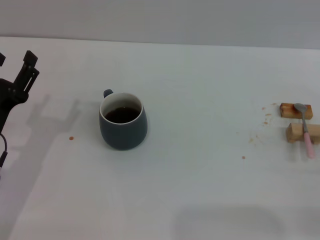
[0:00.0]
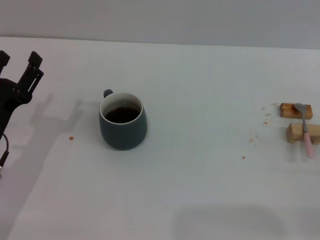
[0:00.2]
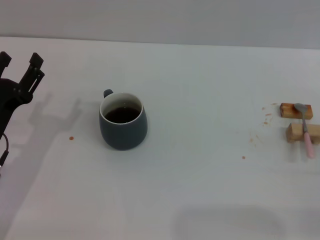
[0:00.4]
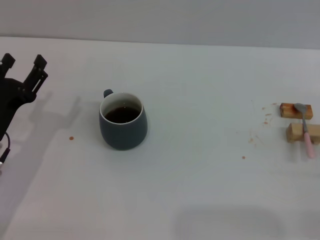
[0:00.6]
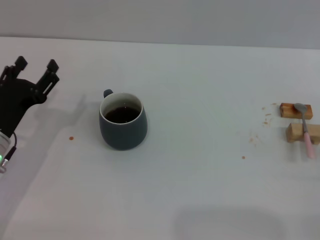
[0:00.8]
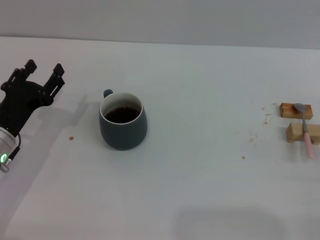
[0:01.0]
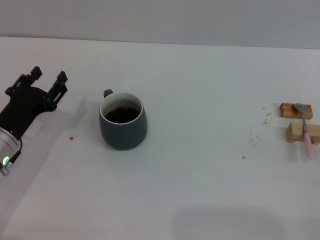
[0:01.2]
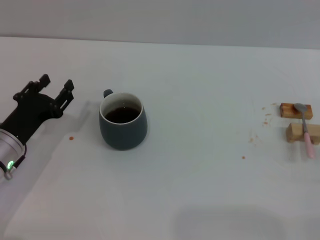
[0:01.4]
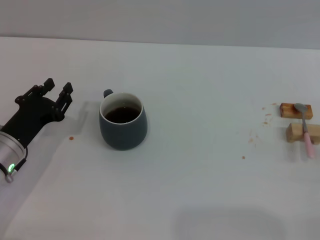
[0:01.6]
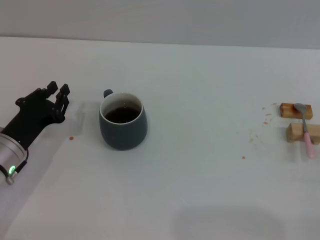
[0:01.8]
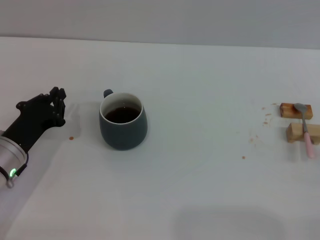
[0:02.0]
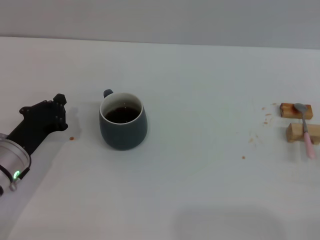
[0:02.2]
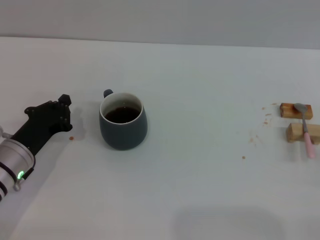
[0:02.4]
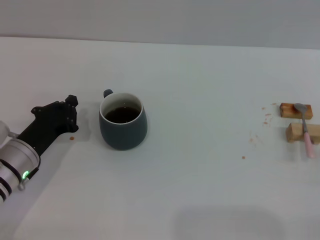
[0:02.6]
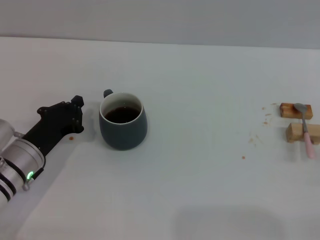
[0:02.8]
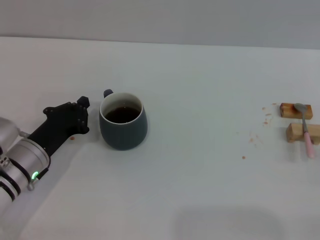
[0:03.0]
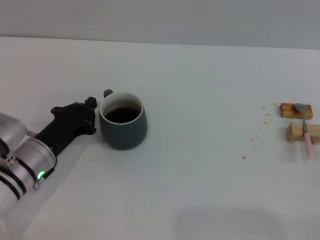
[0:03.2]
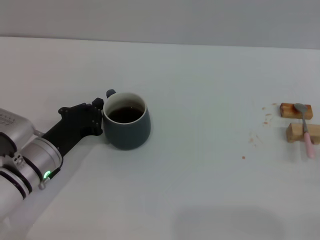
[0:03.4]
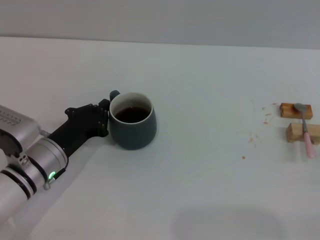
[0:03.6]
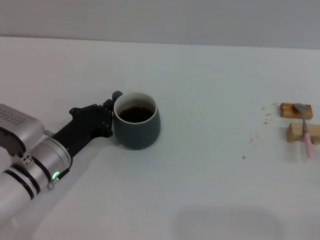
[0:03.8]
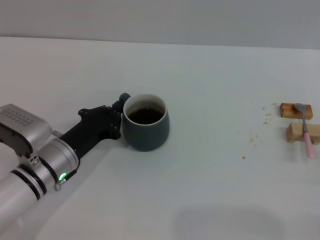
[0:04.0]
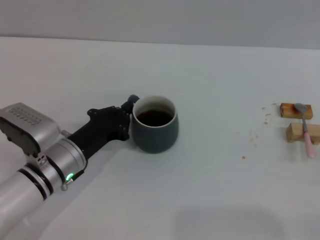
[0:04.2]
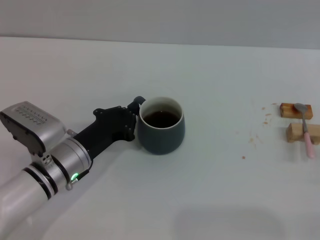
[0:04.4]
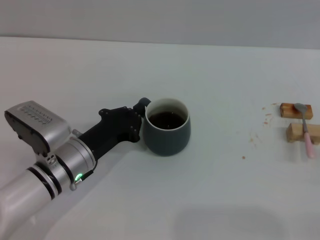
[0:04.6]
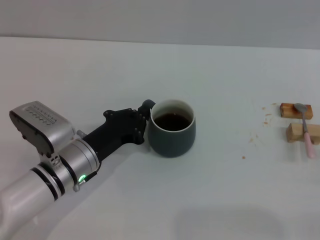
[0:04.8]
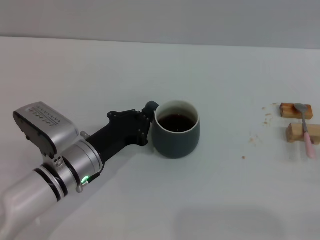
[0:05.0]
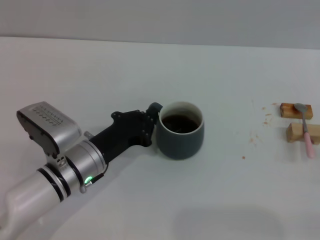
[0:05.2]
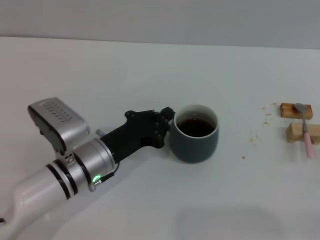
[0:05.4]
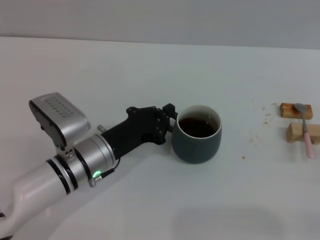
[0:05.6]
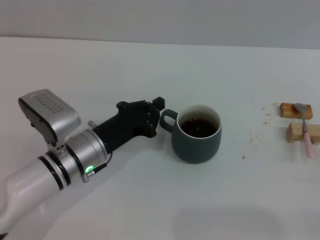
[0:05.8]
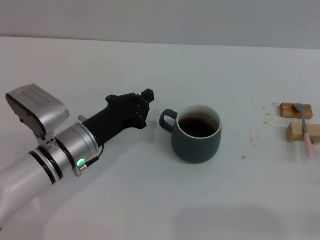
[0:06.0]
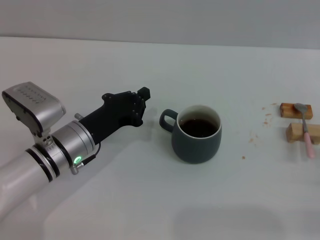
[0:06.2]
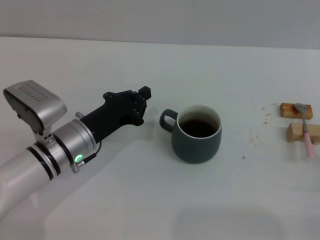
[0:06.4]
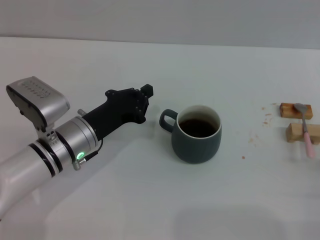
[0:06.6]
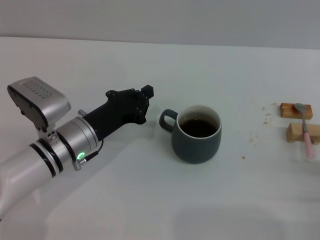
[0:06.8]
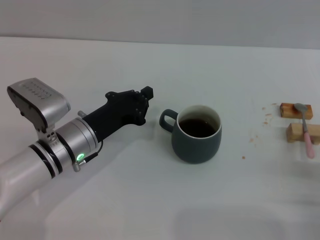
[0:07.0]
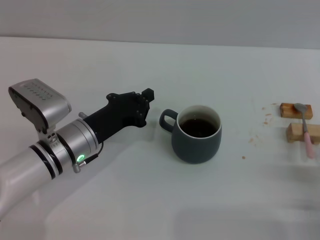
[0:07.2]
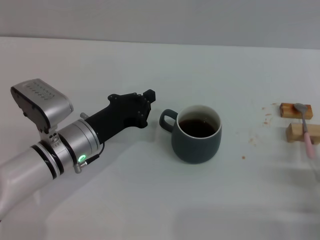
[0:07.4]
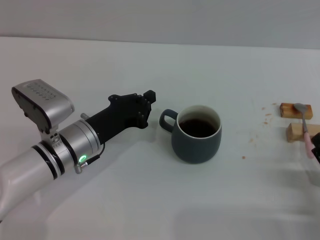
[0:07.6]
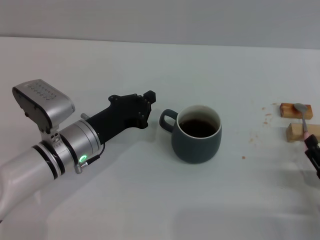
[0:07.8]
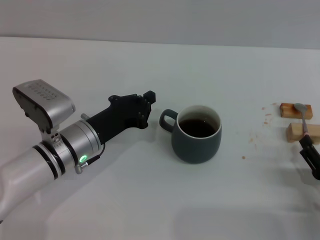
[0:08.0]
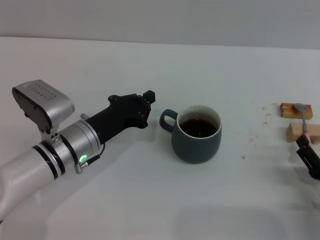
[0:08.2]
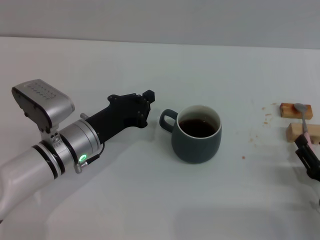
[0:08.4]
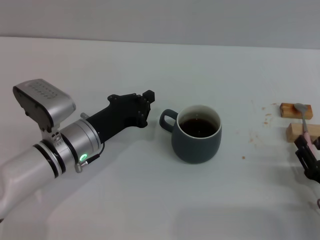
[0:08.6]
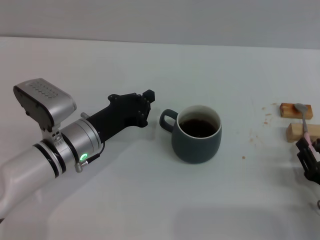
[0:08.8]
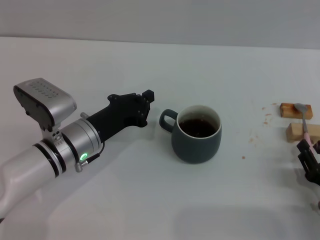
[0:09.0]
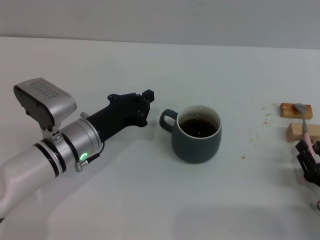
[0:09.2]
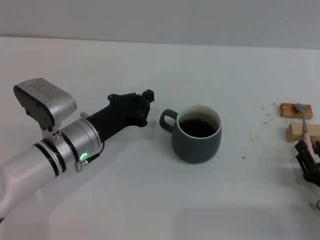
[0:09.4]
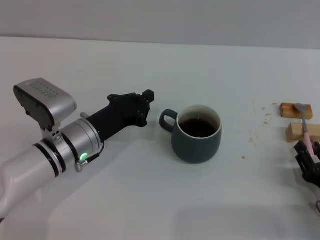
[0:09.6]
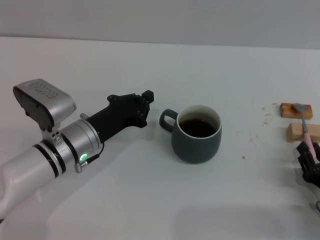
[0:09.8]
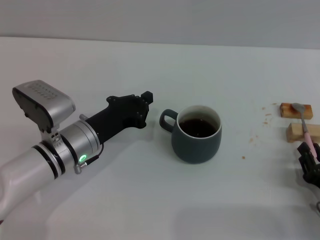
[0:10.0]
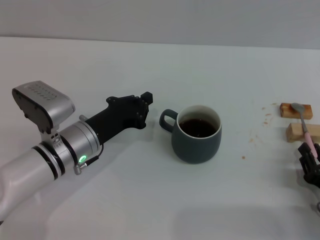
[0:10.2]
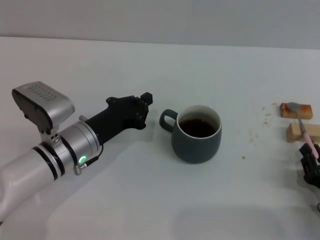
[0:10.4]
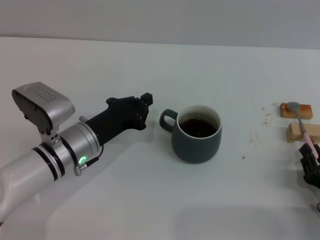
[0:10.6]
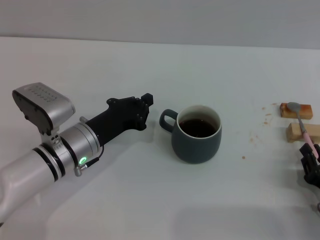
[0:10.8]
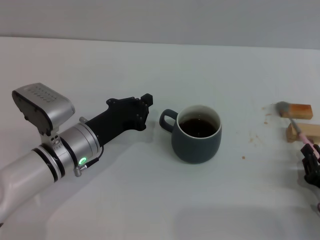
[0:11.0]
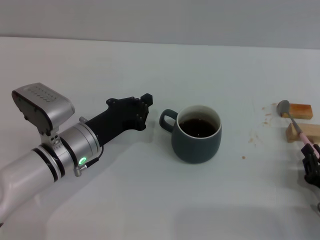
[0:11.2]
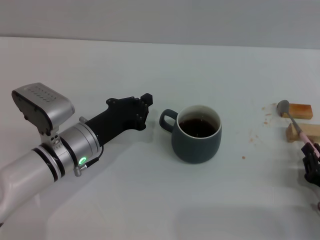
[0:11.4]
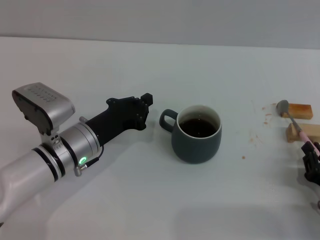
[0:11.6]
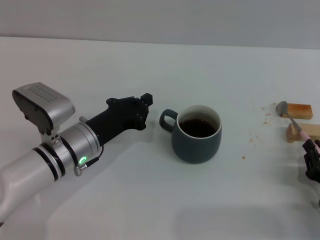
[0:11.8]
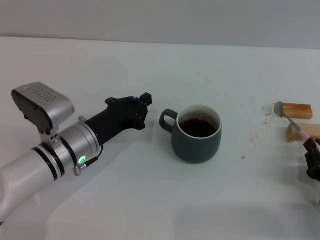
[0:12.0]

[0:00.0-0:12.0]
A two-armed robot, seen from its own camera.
Task of the whole recording: Move the grey cup to the center, lift the pink spoon, stir it three times in the cup, and put the spoon into the cup.
Step, 0:00.0 to 0:06.0: Move the cup with coffee to the center of view with the left gripper.
0:01.6 to 0:03.0: The left gripper closes.
0:03.0 to 0:04.4: The left gripper shifts approximately 5 cm to the right.
0:04.4 to 0:06.0: The grippers move only a little.
0:06.0 to 0:07.6: The right gripper is displaced to the left by some 5 cm.
0:07.6 to 0:09.0: The right gripper closes its fingers.
0:09.0 to 0:12.0: Both grippers stay put.

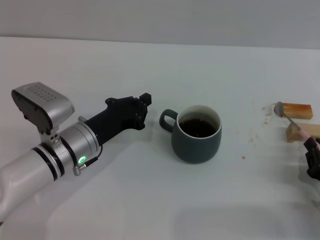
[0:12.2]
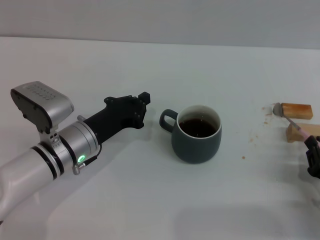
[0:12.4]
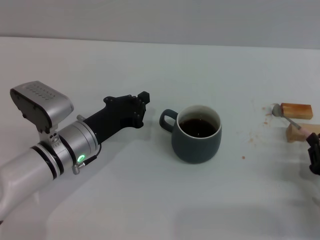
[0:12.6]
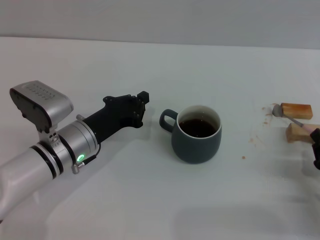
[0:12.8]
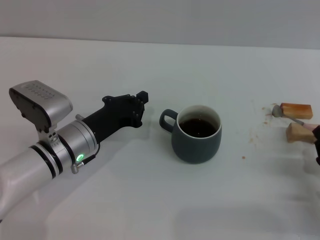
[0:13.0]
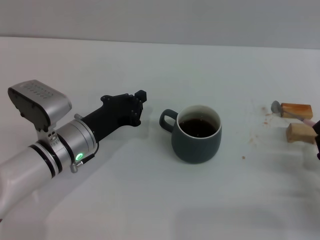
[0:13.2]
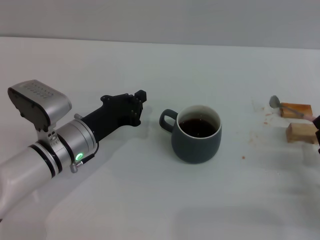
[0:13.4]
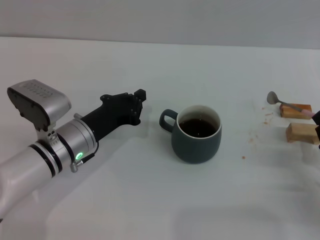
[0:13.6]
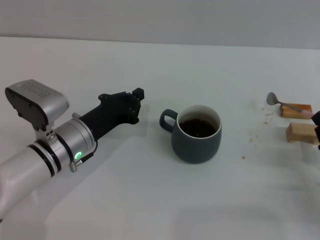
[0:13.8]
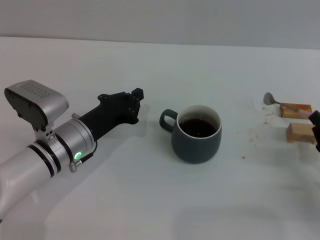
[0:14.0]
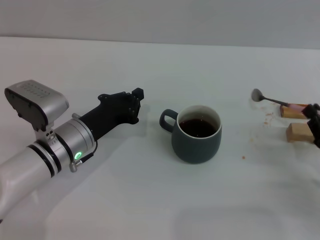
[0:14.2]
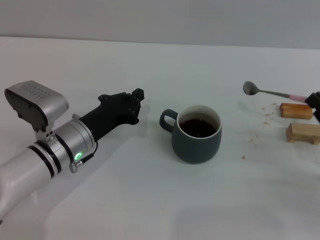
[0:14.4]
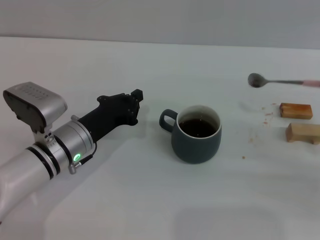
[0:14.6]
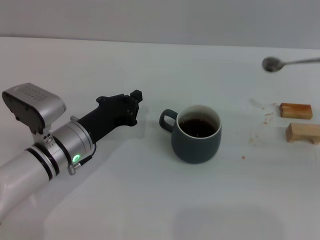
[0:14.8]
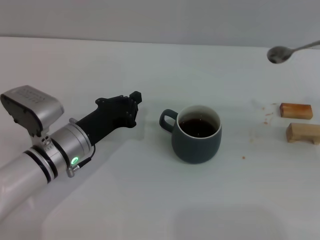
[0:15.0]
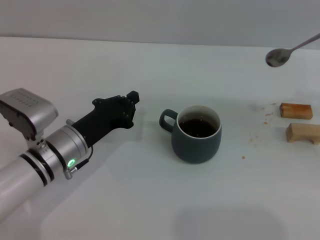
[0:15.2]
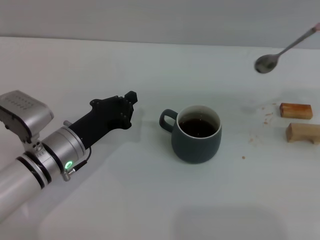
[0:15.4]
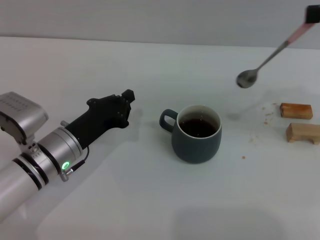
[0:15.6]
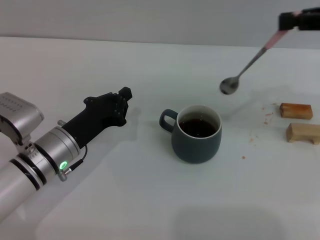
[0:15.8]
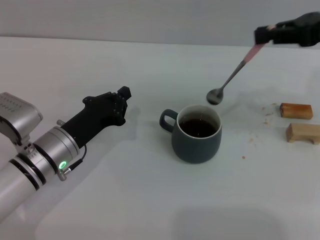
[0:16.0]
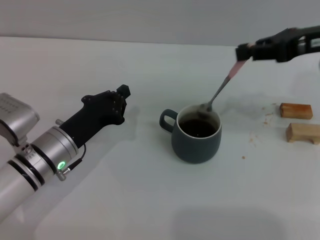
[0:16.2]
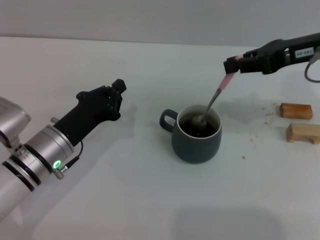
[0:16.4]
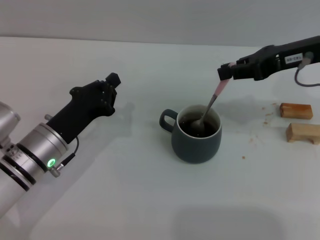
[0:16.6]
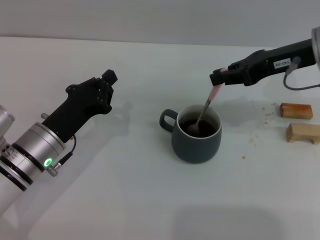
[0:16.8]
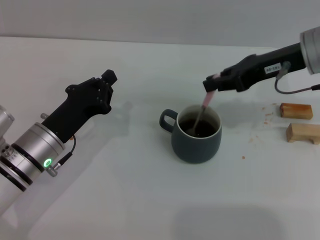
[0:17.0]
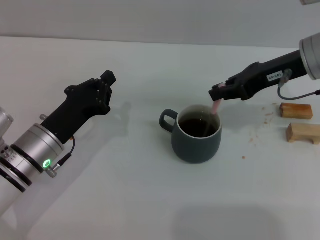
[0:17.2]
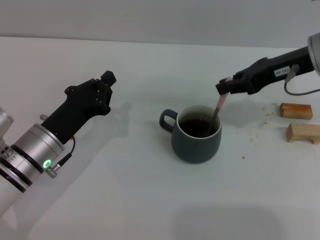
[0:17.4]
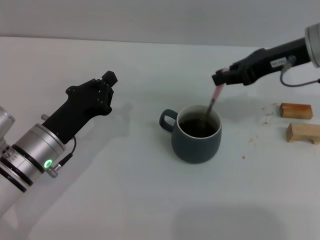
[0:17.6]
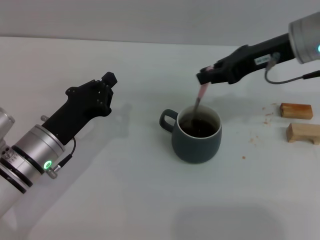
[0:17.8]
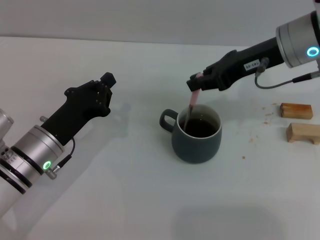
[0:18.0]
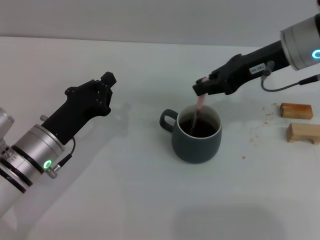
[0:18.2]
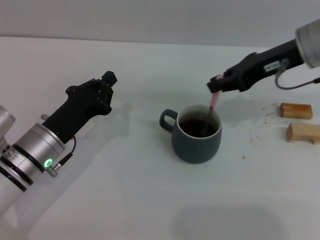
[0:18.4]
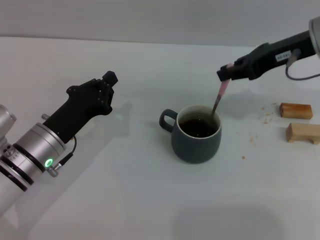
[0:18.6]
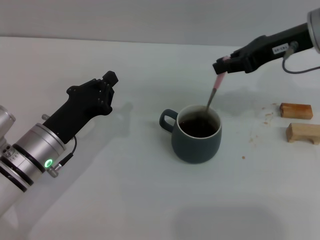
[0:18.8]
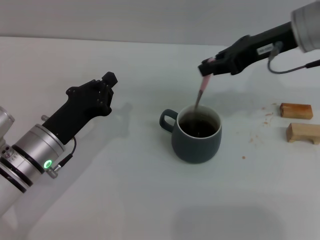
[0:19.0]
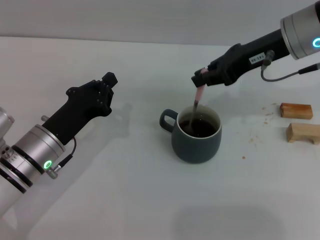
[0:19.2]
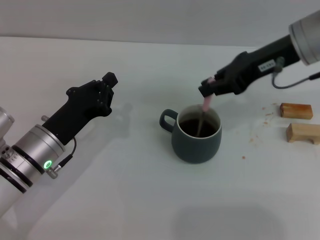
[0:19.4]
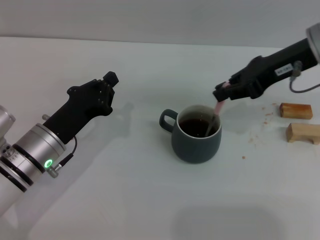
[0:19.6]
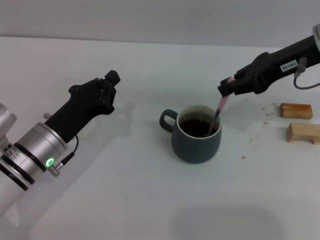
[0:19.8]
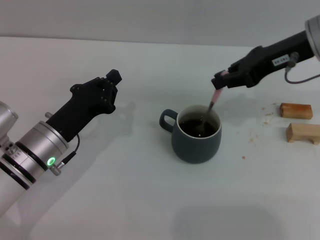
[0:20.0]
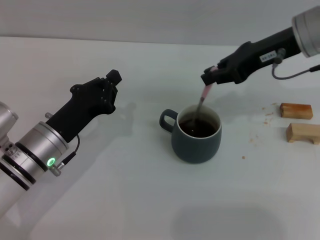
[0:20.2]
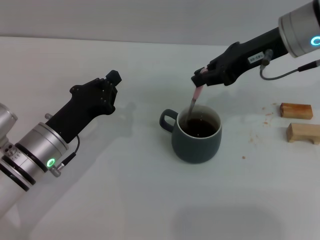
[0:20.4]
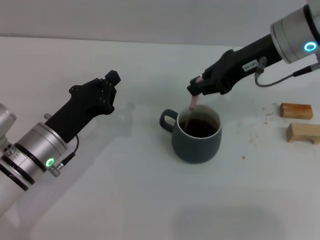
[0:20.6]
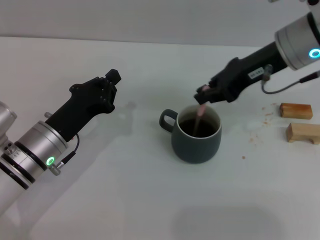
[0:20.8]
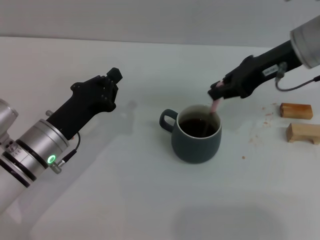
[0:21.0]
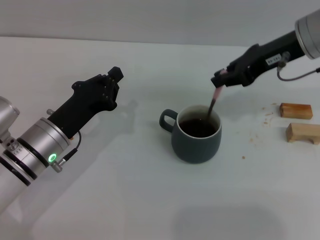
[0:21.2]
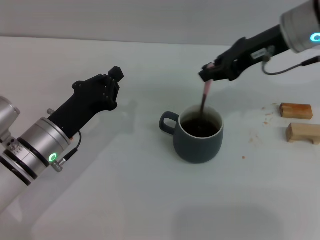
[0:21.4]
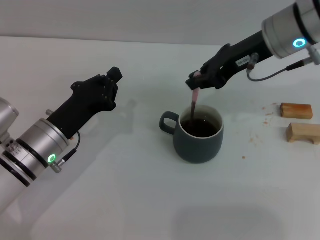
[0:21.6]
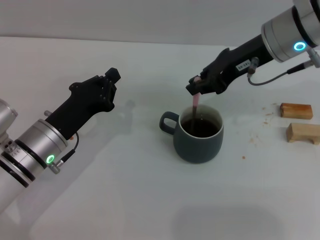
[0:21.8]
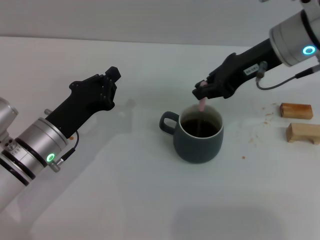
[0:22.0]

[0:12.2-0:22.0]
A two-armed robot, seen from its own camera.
Task of the whole recording: Move the grey cup to the center, lift the pink spoon, stir it three times in the cup, and put the spoon into the cup.
0:12.2 to 0:13.6: The grippers make only small movements.
0:13.6 to 0:15.0: The right gripper goes some 20 cm upward and to the right.
0:15.0 to 0:16.4: The right gripper shifts approximately 15 cm to the left and forward.
0:16.4 to 0:17.8: The right gripper moves approximately 5 cm.
0:17.8 to 0:22.0: The grippers move only a little.
